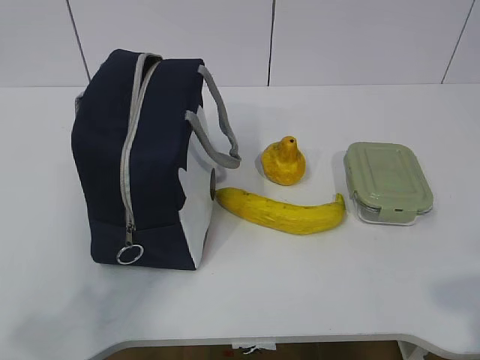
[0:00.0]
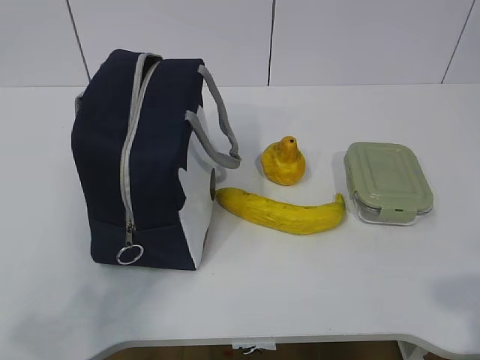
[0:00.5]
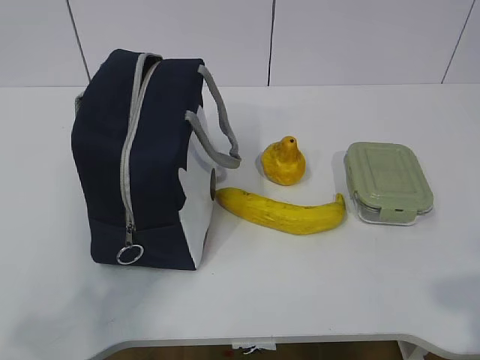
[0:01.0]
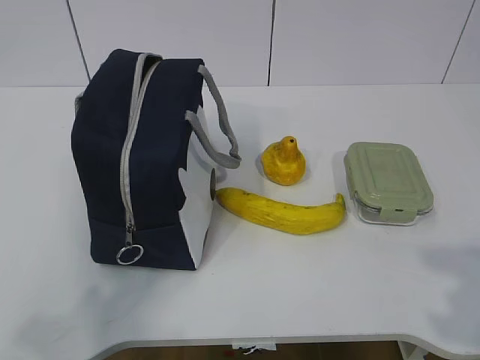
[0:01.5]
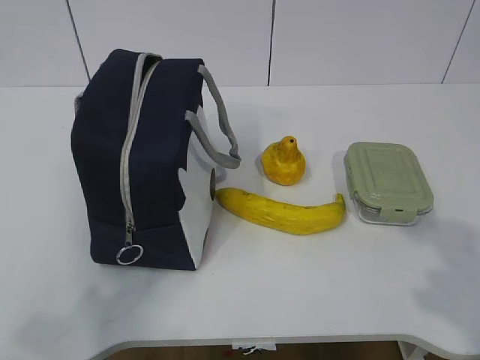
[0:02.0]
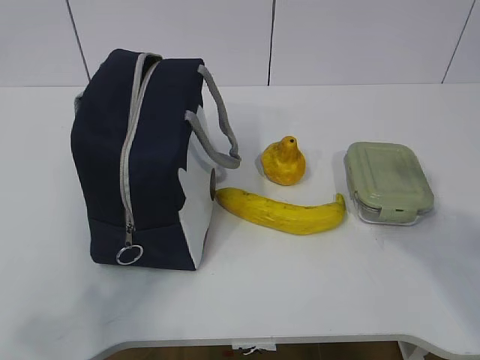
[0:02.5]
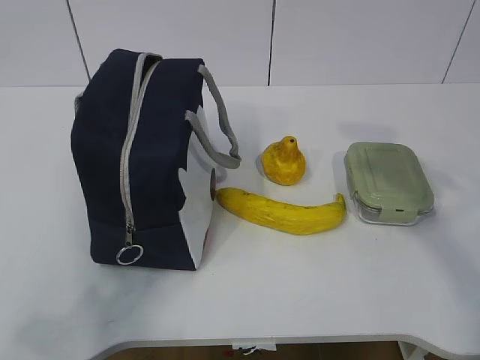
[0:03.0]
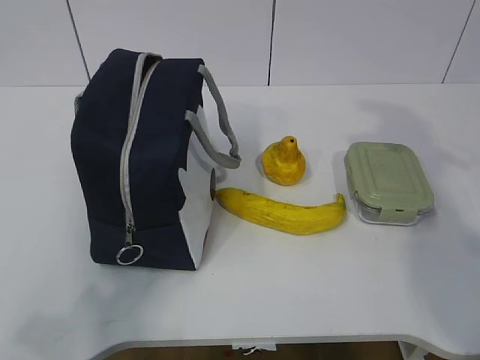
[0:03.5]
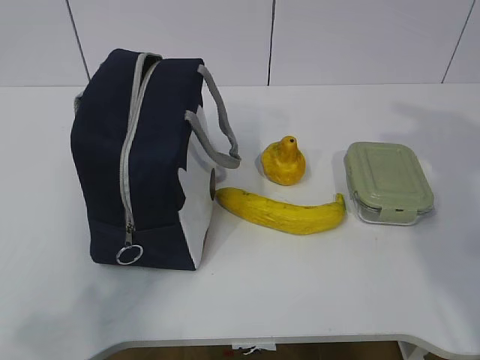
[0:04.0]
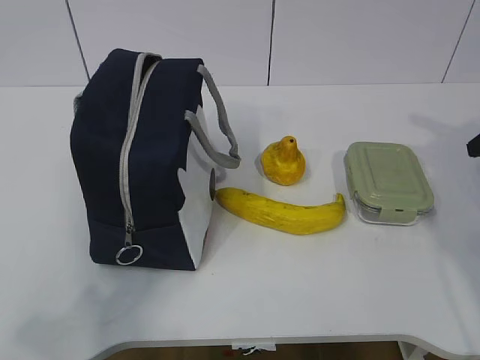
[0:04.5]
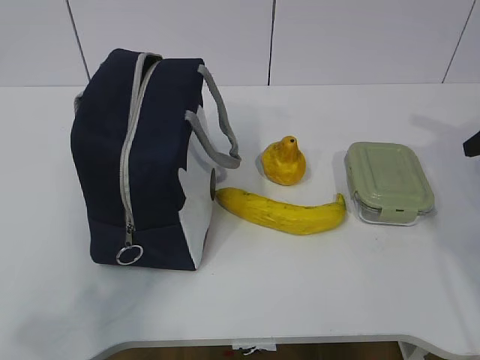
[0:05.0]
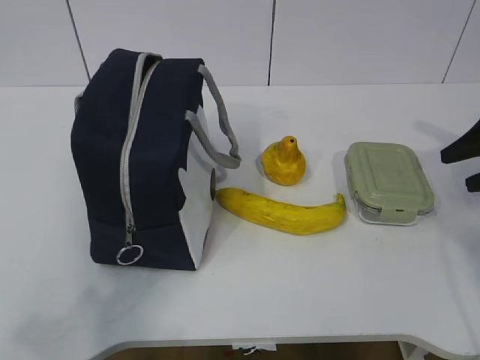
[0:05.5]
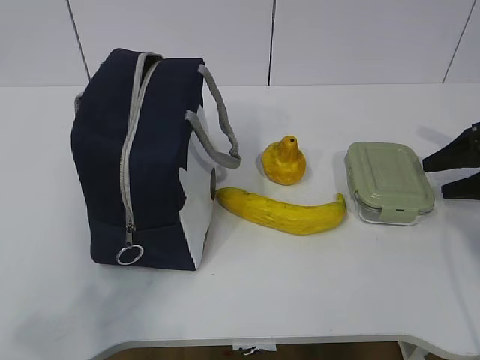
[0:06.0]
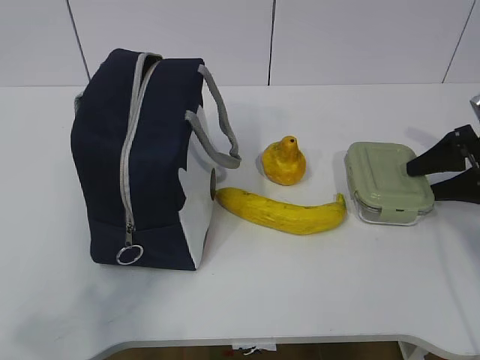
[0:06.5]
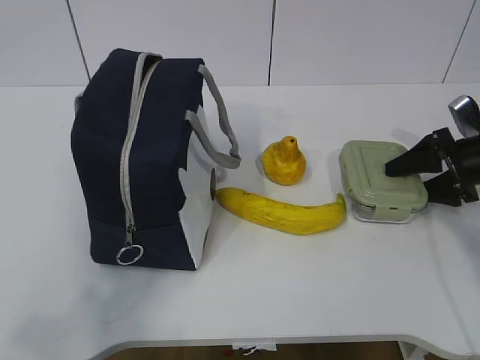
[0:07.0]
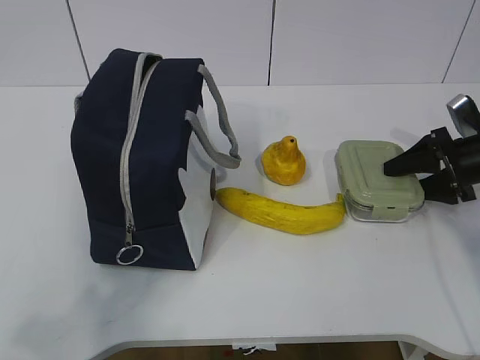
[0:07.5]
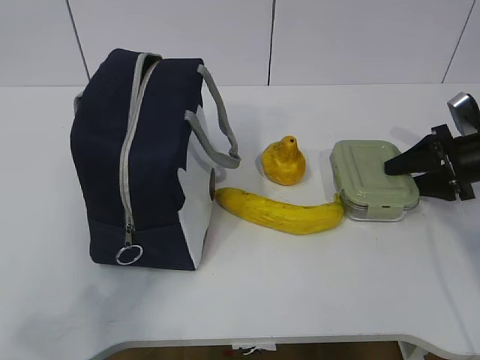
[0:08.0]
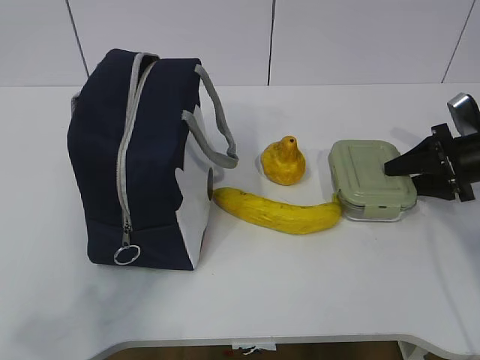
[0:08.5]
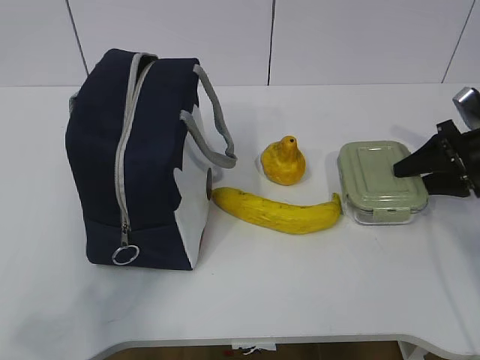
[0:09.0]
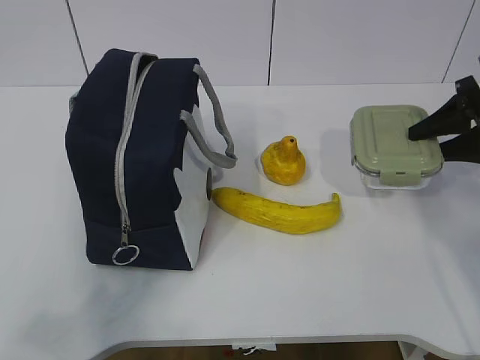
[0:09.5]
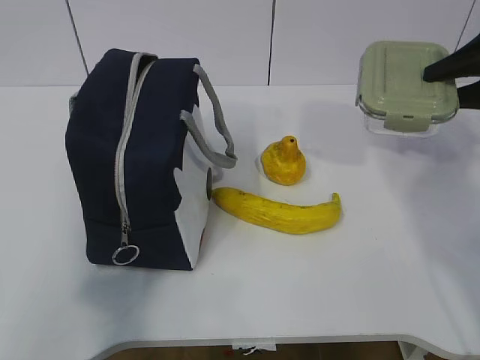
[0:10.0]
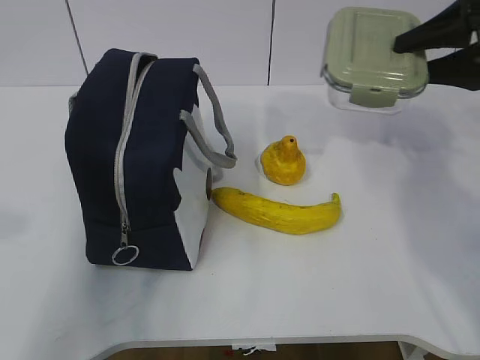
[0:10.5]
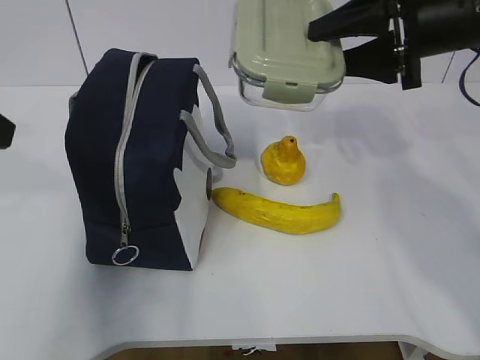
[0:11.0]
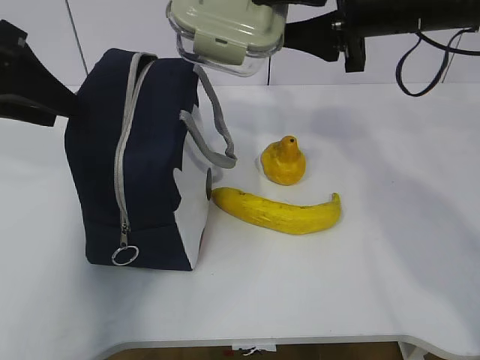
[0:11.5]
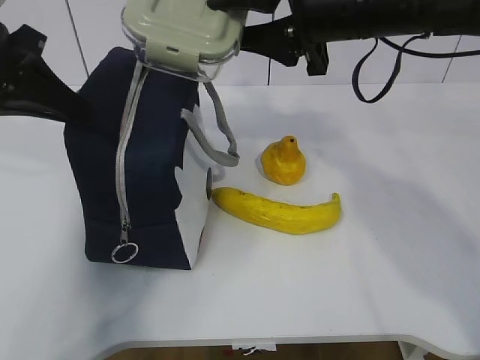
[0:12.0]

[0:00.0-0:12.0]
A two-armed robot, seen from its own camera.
Step, 0:00.0 to 0:07.0: Grab the lunch box with your right hand.
Step, 0:07.5 to 0:10.0: Grab the lunch bag with your left hand.
0:02.0 to 0:04.0: The right gripper goes roughly 25 cm forward.
0:04.0 to 0:06.0: The right gripper is displaced downward and forward by approximately 15 cm.
0:06.0 to 0:08.0: The right gripper moves roughly 5 cm.
0:08.0 to 0:10.0: The right gripper is displaced upward by about 15 cm.
0:10.0 to 0:12.0: The left gripper moves forward, approximately 30 cm, and closes. Meanwhile the right gripper is displaced to the left by roughly 25 cm.

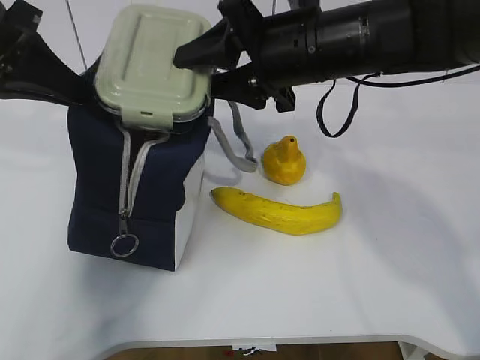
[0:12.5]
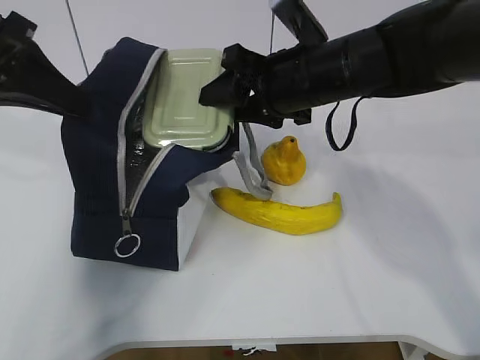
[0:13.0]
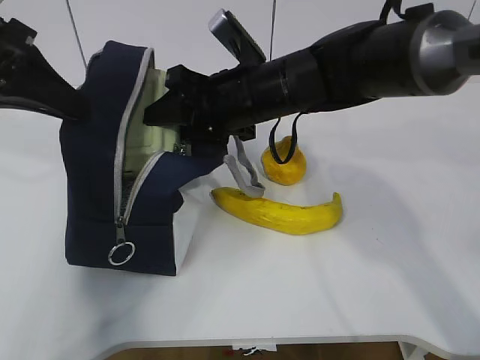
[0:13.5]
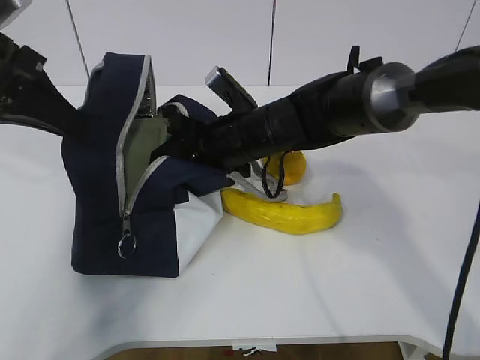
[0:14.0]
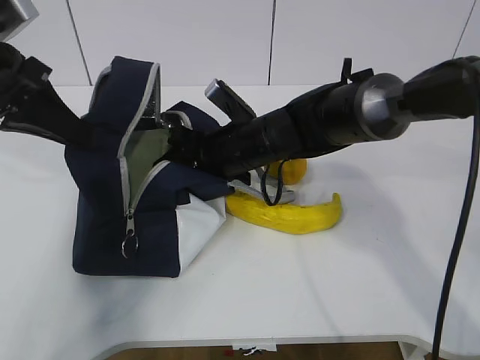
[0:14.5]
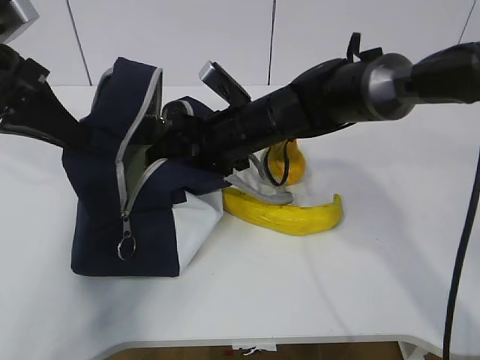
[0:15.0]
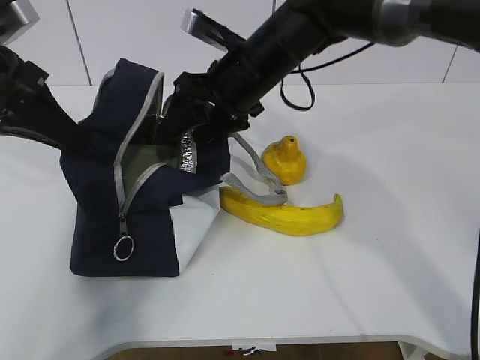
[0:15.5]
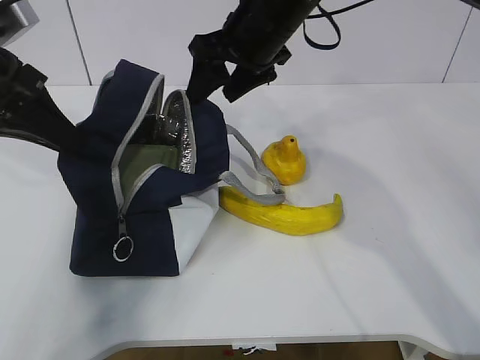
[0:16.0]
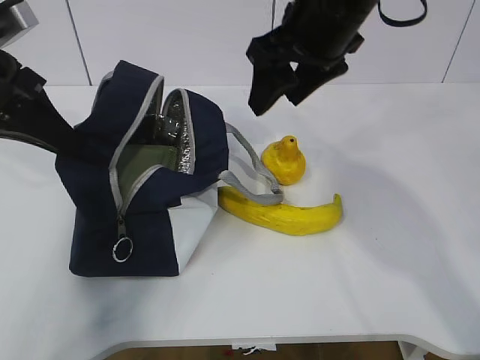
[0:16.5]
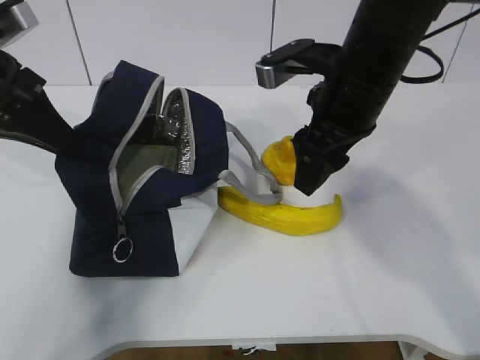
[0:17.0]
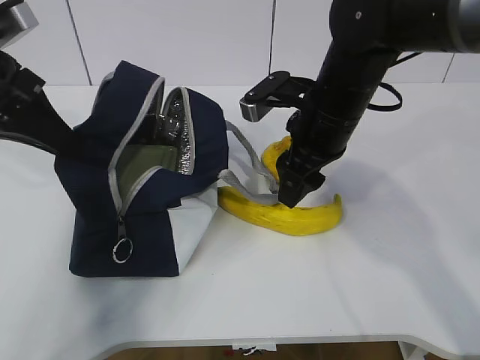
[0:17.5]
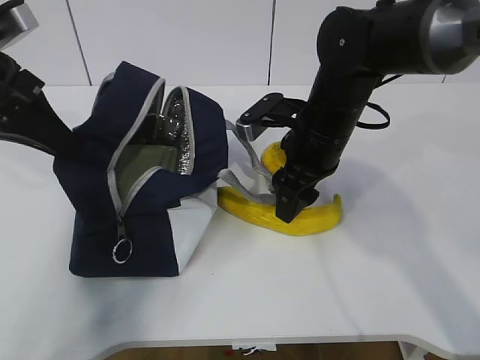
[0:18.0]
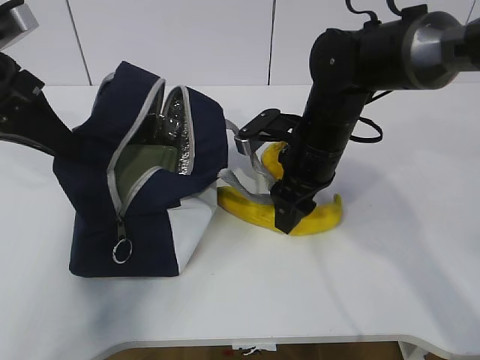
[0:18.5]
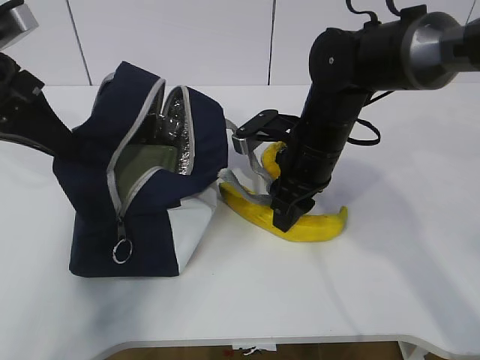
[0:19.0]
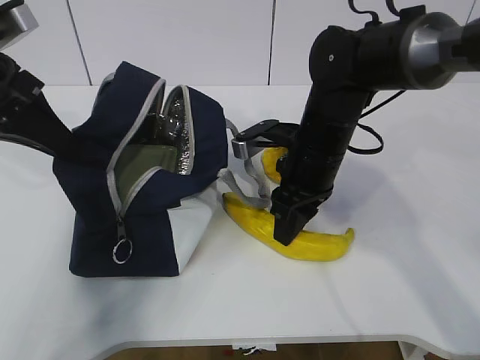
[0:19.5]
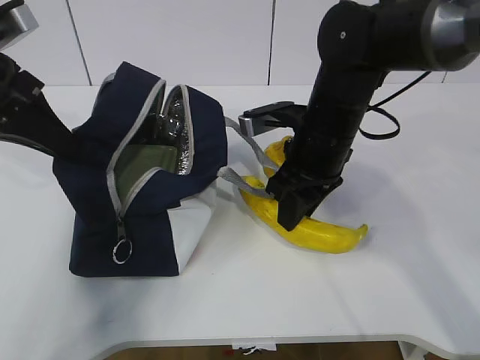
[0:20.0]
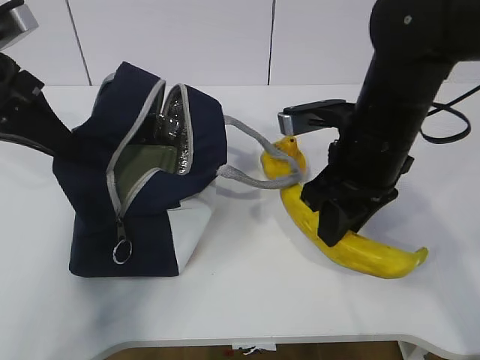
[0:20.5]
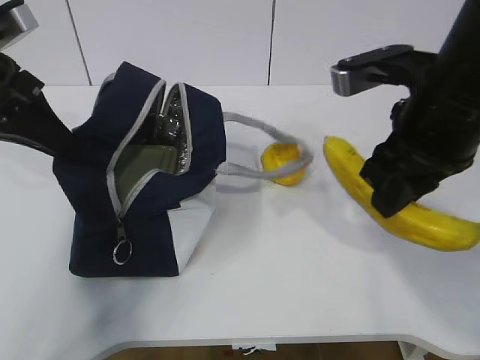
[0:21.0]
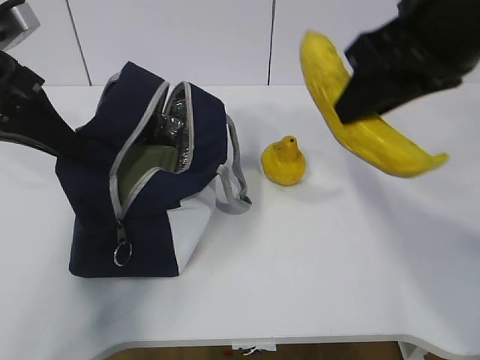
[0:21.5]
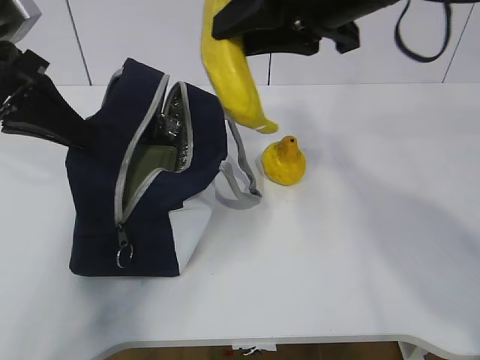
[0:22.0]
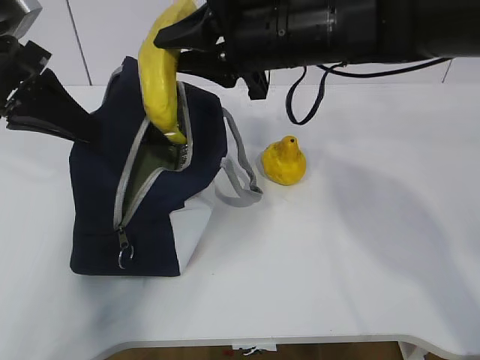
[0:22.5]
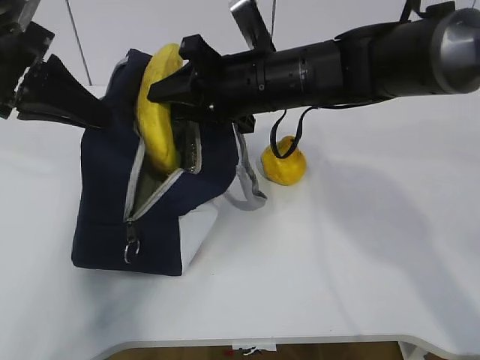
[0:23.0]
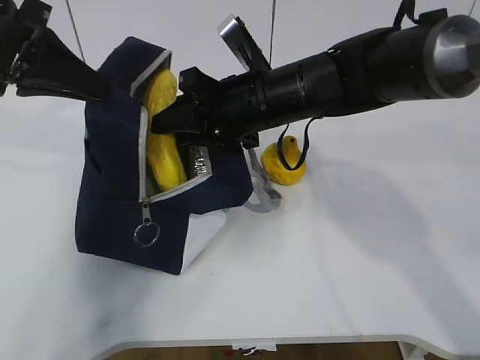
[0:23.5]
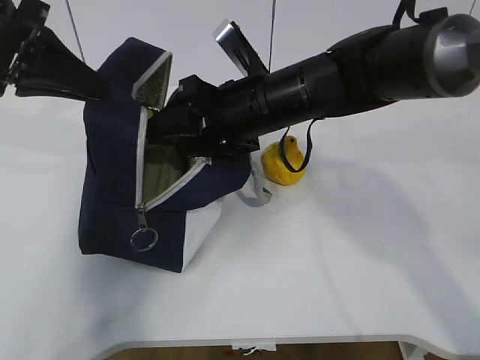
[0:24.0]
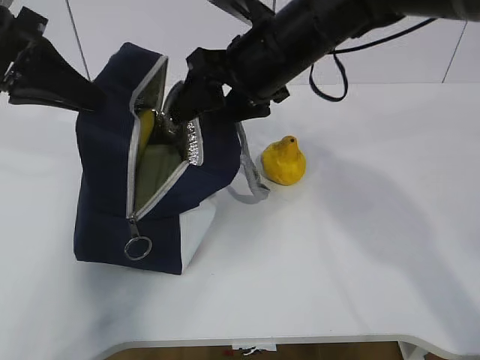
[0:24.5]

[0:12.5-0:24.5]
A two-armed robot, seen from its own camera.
Step, 0:12.5 to 0:16.0: Grab the banana with your right hand.
Step, 0:16.5 to 0:20.0: Place it into the bag with your right hand.
Step, 0:20.5 to 0:22.0: Grab the pear with your right hand.
0:12.5 to 0:14.5: The right gripper moves downward and to the left, approximately 15 cm.
0:14.5 to 0:16.5: The right gripper is displaced upward and to the right by about 20 cm.
0:16.5 to 0:18.5: The right gripper goes about 15 cm downward.
0:18.5 to 0:20.5: The right gripper travels backward and upward by roughly 10 cm.
0:20.5 to 0:22.5: The right gripper shifts approximately 10 cm to the left, forward and upward.
0:22.5 to 0:24.5: The right gripper opens.

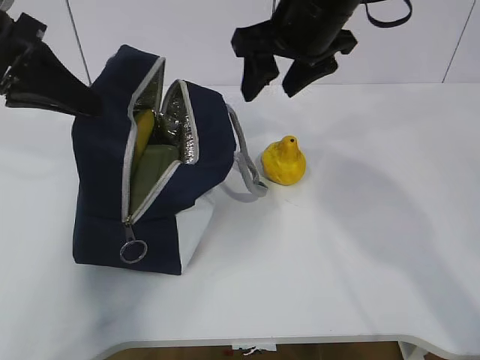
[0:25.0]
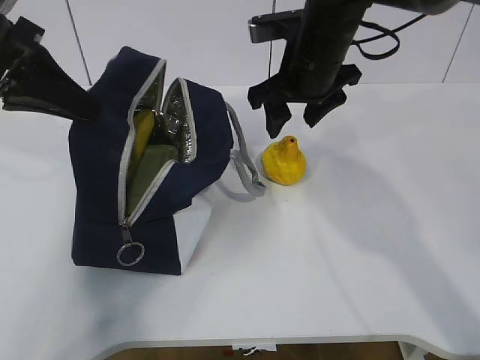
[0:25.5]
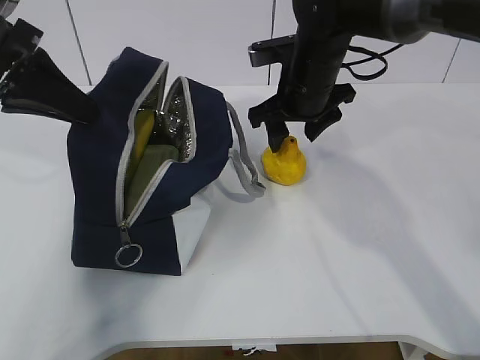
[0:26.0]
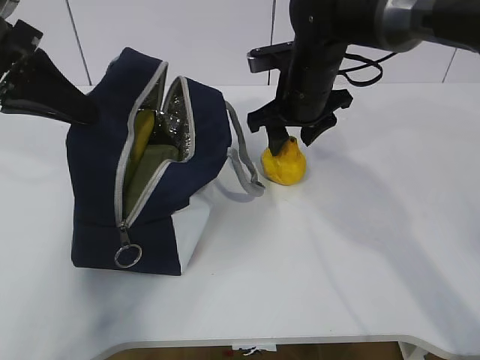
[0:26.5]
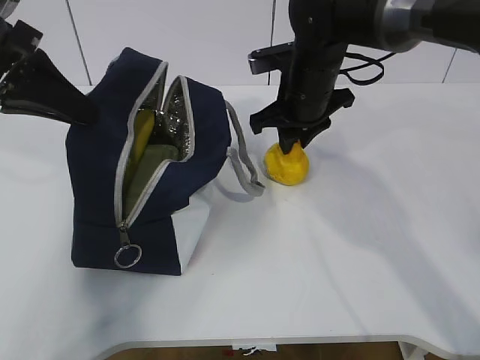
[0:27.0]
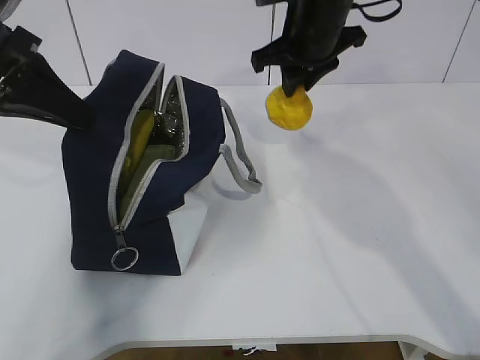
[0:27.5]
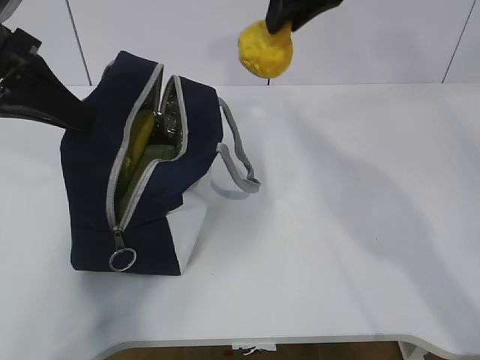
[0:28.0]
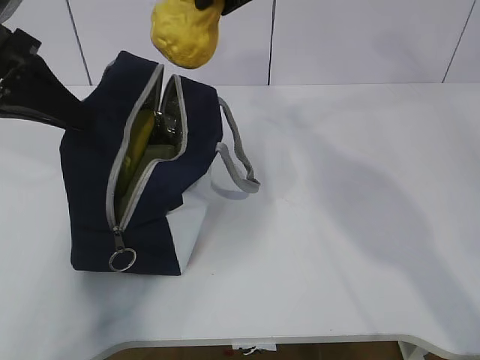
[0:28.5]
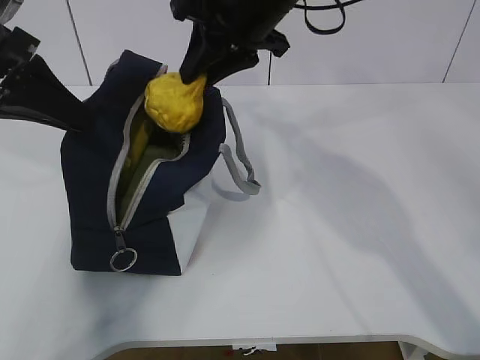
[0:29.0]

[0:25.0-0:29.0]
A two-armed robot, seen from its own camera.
Step, 0:25.0 to 0:26.0: Grab the lunch bag with your right hand.
Step, 0:26.5 to 0:27.5: Move the lunch bag to the right.
0:25.0 to 0:27.0: The right gripper travels downward by approximately 10 cm, and closes up.
0:27.0 to 0:29.0: The right gripper moves upward and to the left, approximately 15 cm.
